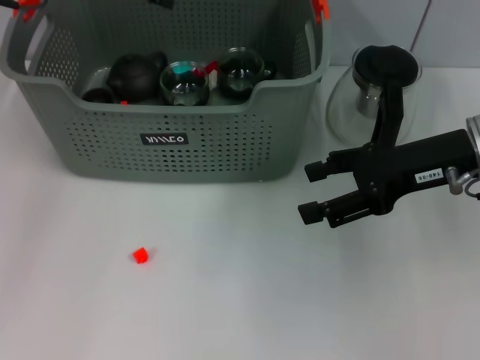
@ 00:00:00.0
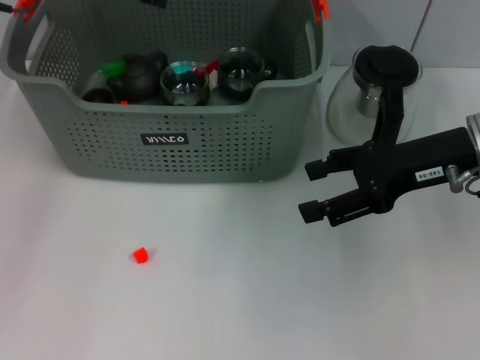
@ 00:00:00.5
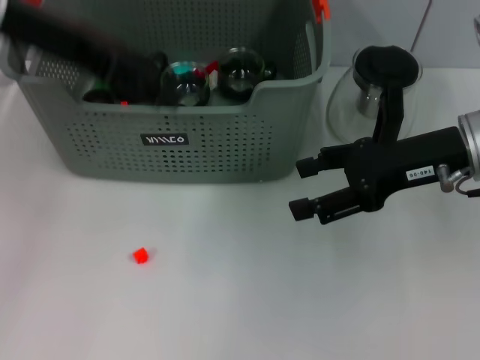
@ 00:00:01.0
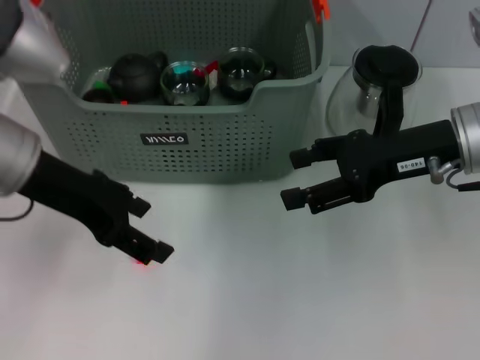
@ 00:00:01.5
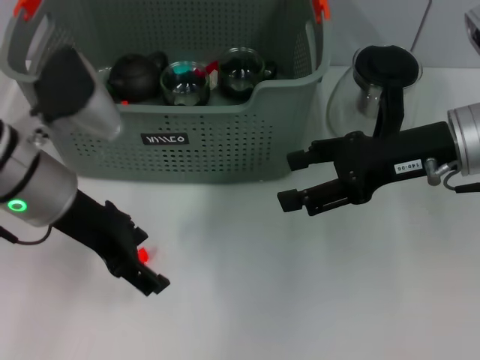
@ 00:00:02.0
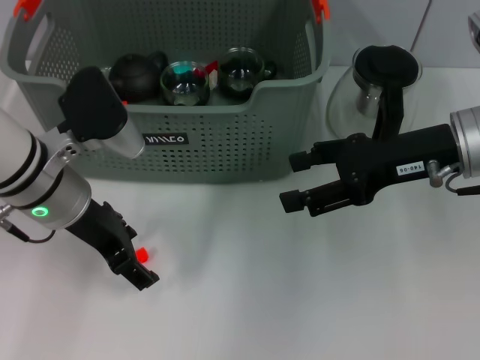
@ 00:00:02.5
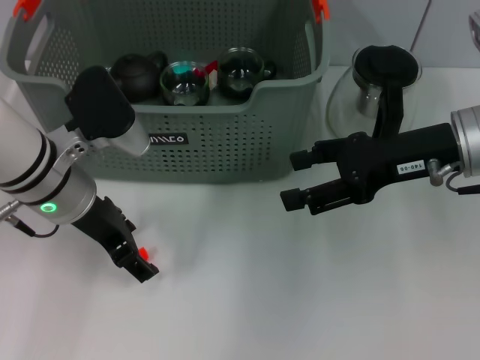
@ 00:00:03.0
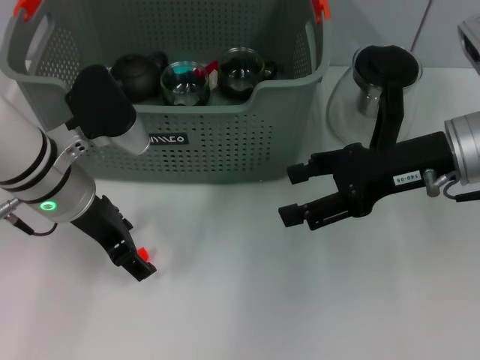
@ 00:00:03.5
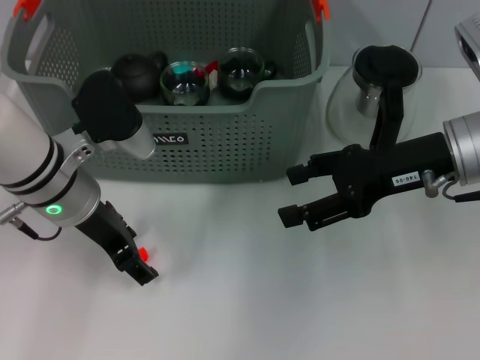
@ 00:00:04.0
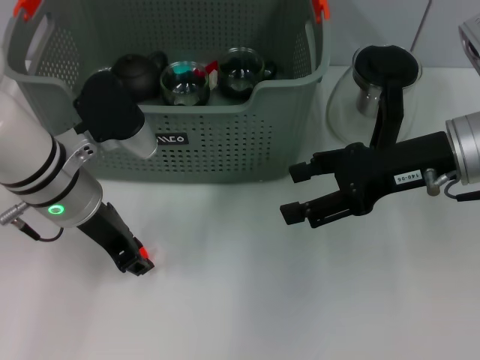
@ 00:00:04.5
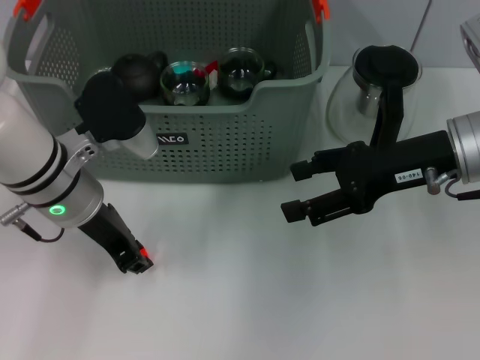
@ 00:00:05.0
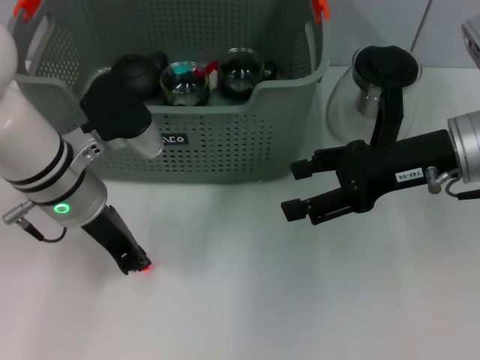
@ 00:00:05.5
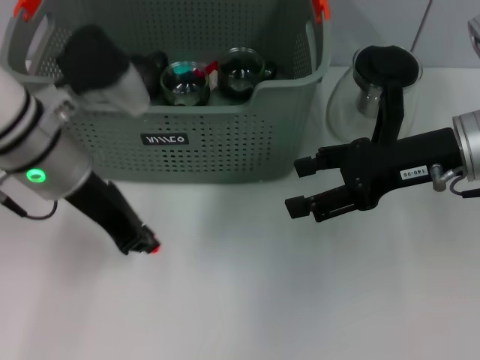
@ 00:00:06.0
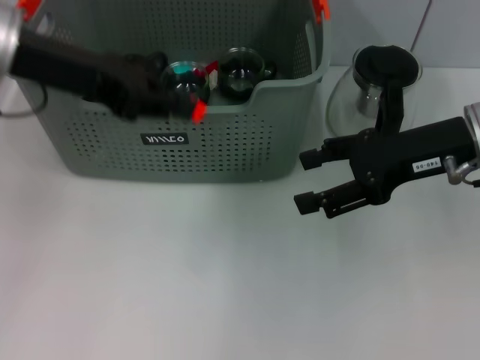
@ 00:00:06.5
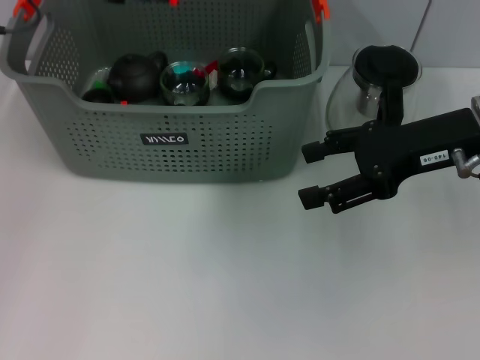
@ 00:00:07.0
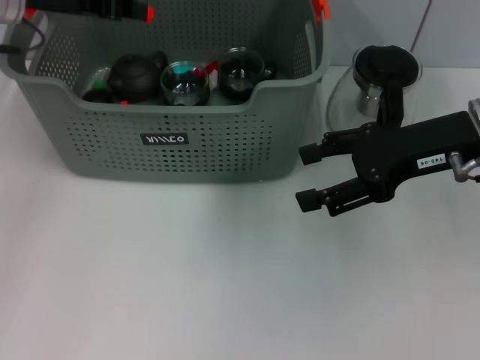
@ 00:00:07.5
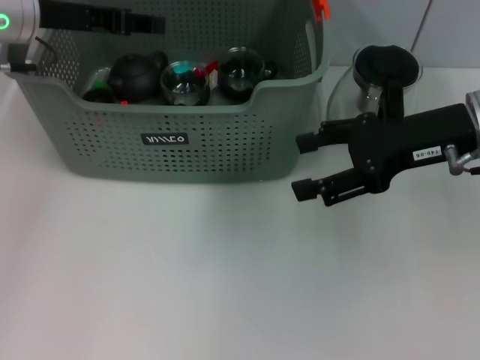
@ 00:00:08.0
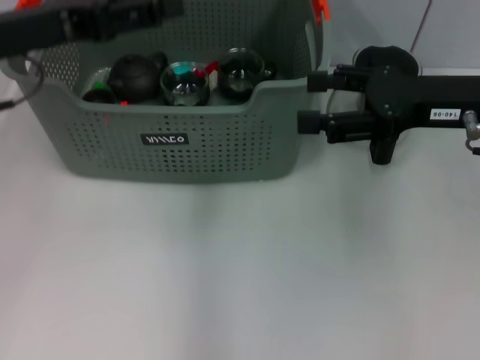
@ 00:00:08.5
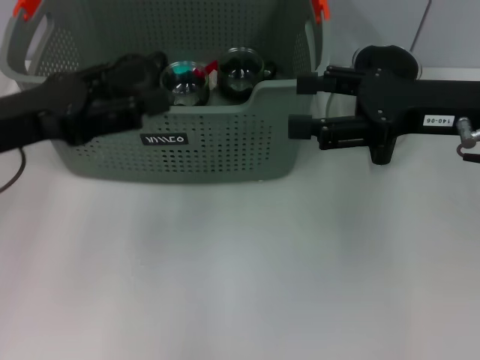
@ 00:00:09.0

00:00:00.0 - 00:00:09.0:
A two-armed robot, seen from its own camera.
Task of the whole recording: pick up the teacup on the table and place it into the storage bin, pick up the block on the table and place it into the storage bin.
Step, 00:00:01.0 - 00:00:05.5: Grasp the orange block with left gripper.
Step, 00:00:06.0 - 00:00:08.0: Place the orange block in the storage box with left gripper.
00:00:00.0 - 00:00:02.0: The left gripper shifts about 20 cm backward and downward, and opens.
00:00:02.0 - 00:00:04.5: The grippers stay close to where they were, moving slightly.
00:00:04.5 - 00:00:07.0: The left gripper goes approximately 20 cm upward, to the left and forward, and closes up.
00:00:07.0 - 00:00:09.0: The left gripper moves backward and downward, approximately 15 cm, and opens its fingers.

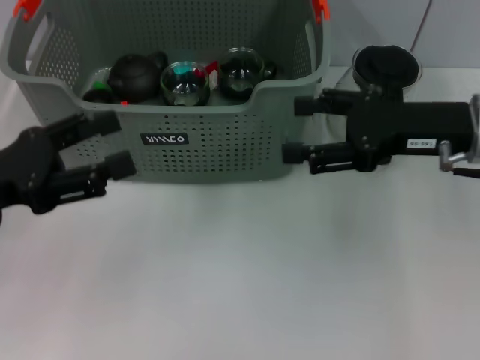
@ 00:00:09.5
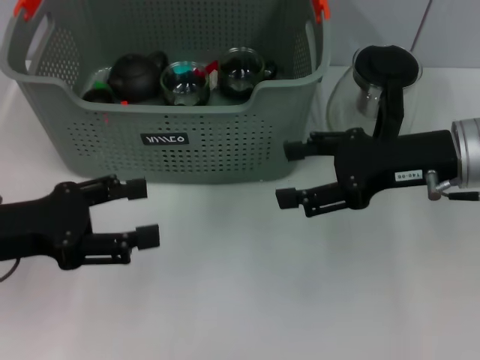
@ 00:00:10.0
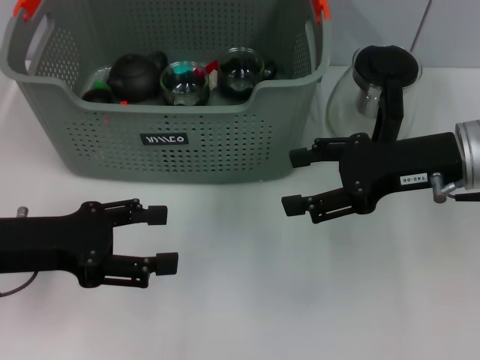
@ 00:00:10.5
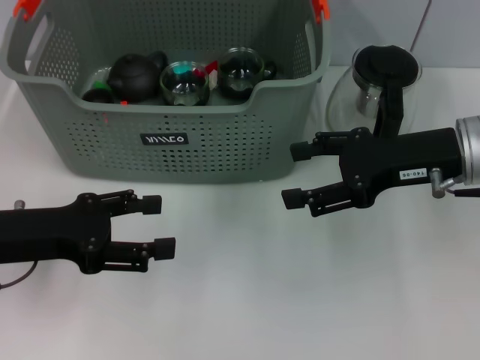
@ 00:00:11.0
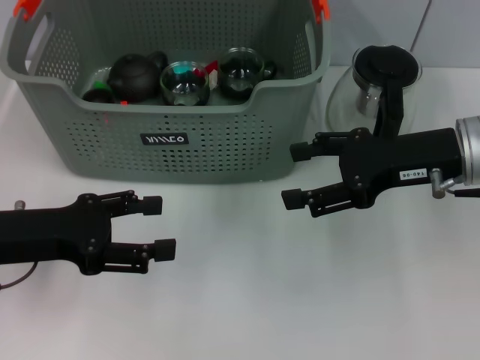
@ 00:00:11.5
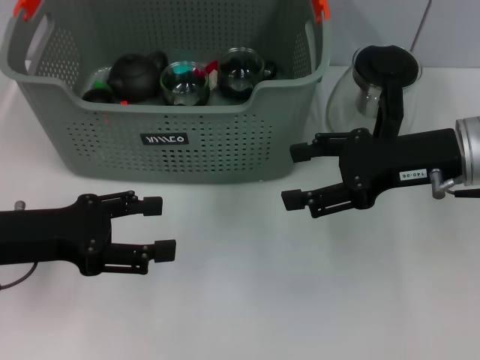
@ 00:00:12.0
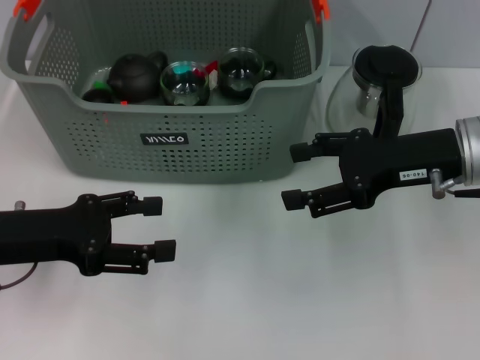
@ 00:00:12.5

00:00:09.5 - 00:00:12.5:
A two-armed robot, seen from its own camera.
Task of the whole recording: pick up the teacup on the table and place it into the storage bin, pick up the block on the table and place it into the storage bin.
00:00:11.0 - 00:00:12.5: Neither gripper changes place.
